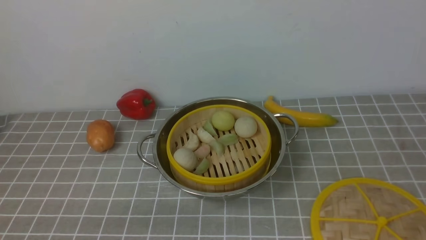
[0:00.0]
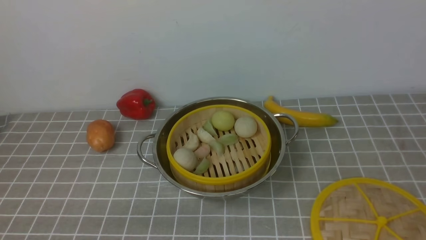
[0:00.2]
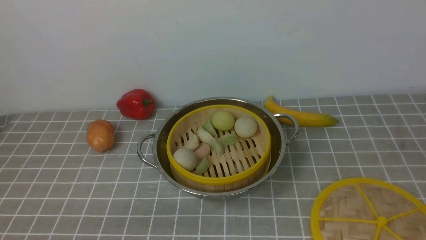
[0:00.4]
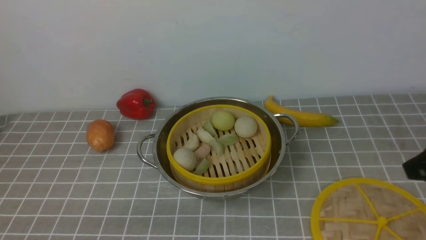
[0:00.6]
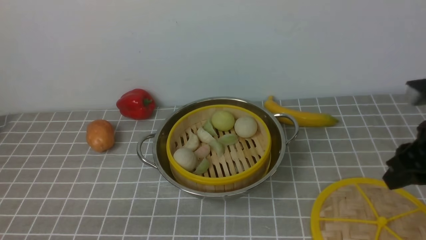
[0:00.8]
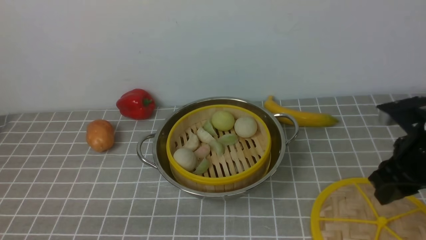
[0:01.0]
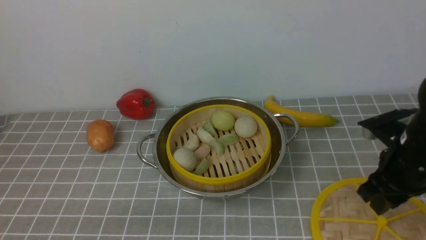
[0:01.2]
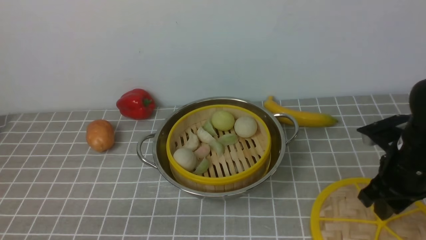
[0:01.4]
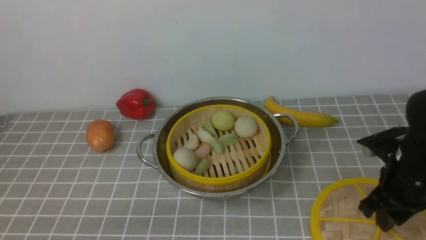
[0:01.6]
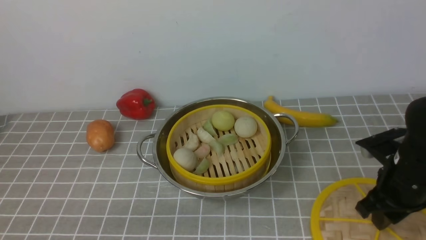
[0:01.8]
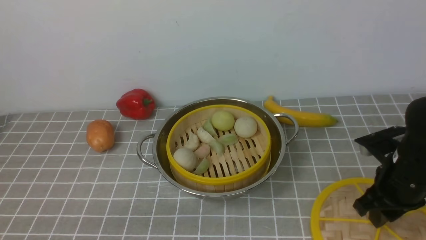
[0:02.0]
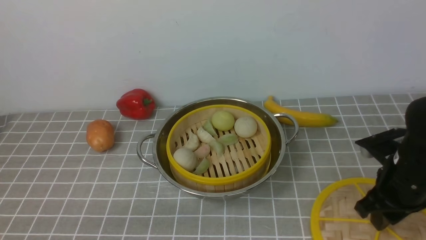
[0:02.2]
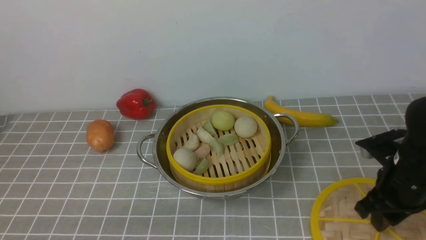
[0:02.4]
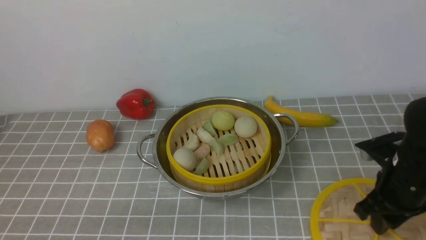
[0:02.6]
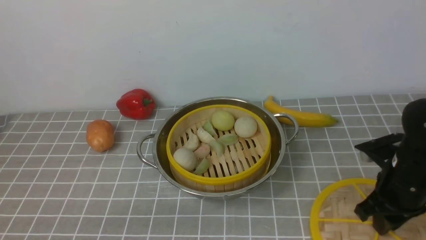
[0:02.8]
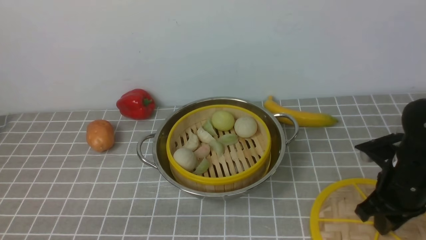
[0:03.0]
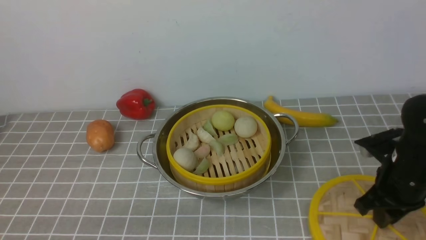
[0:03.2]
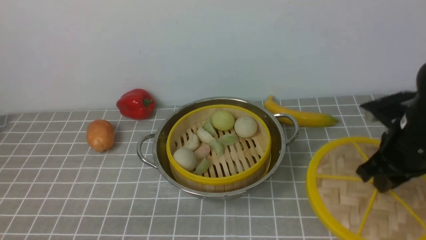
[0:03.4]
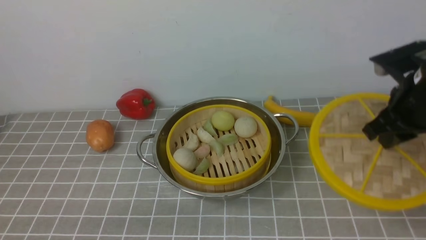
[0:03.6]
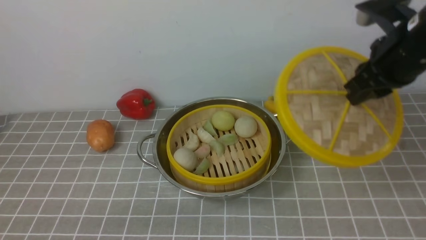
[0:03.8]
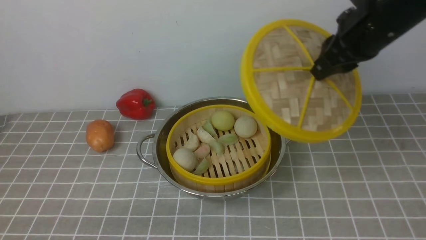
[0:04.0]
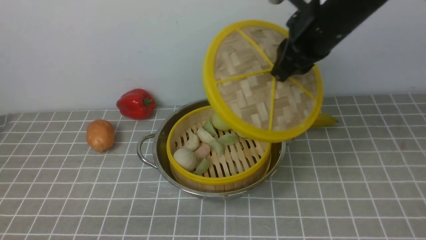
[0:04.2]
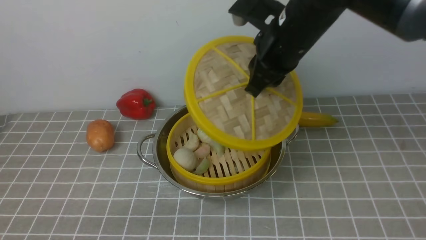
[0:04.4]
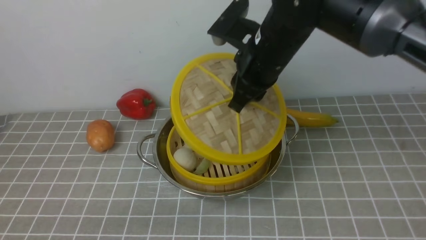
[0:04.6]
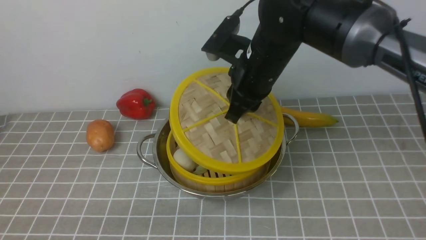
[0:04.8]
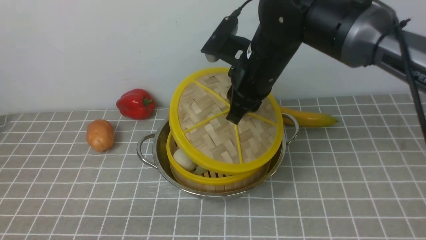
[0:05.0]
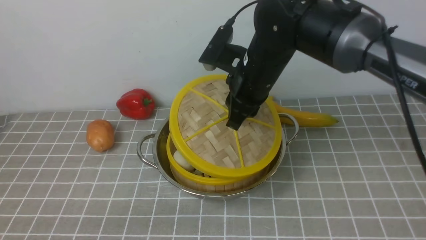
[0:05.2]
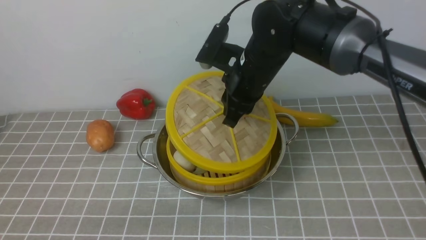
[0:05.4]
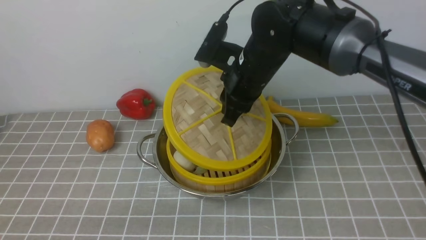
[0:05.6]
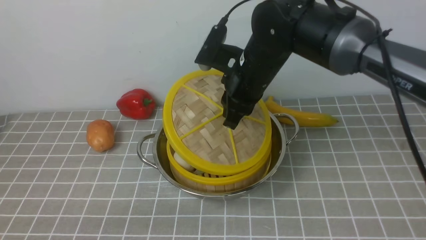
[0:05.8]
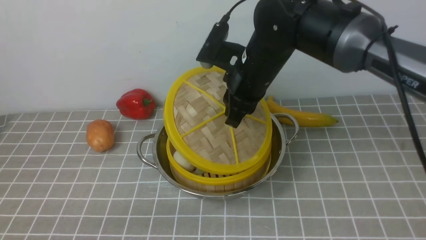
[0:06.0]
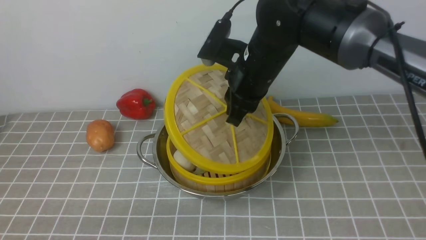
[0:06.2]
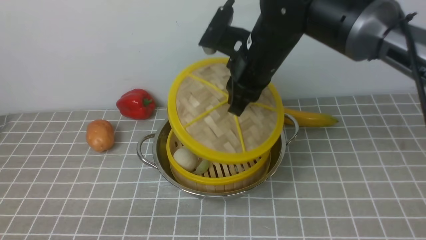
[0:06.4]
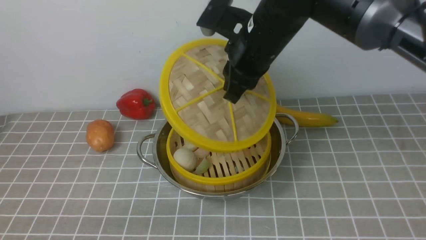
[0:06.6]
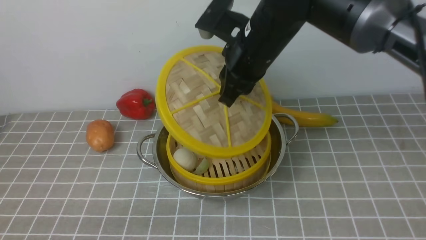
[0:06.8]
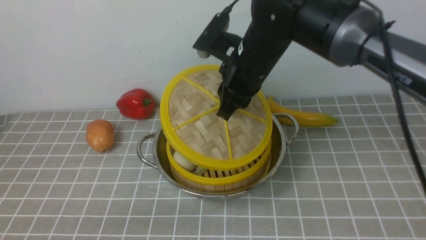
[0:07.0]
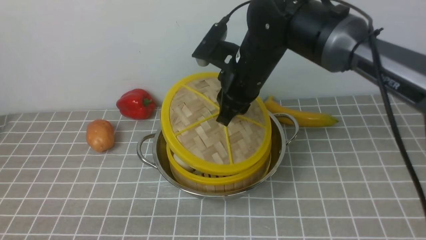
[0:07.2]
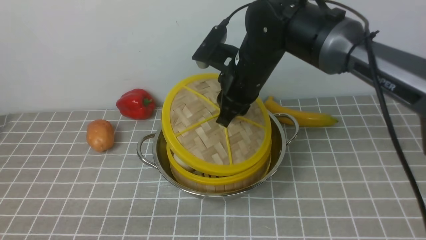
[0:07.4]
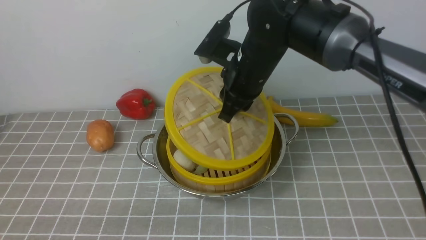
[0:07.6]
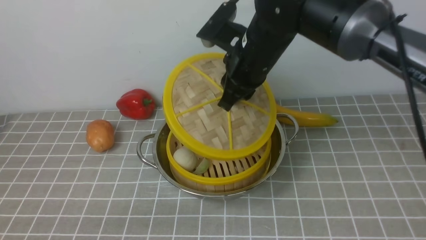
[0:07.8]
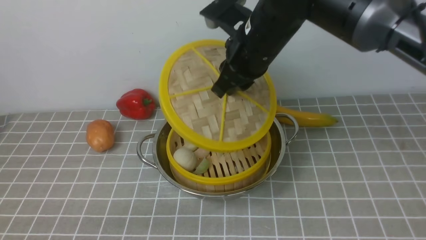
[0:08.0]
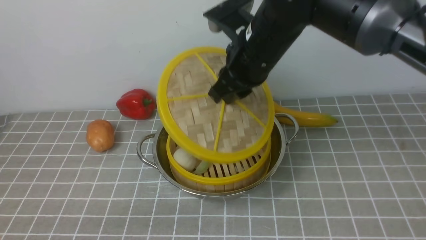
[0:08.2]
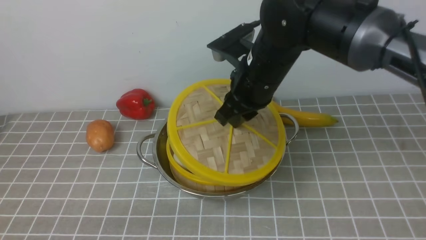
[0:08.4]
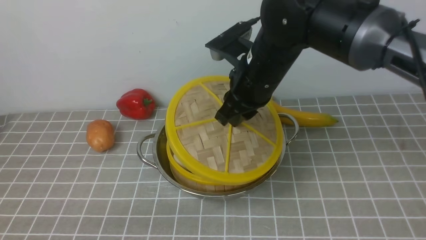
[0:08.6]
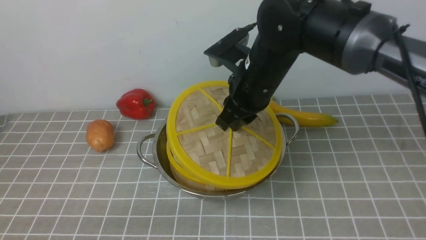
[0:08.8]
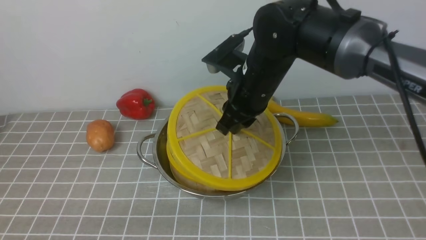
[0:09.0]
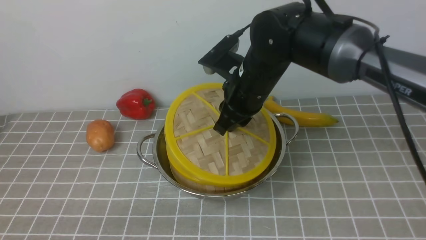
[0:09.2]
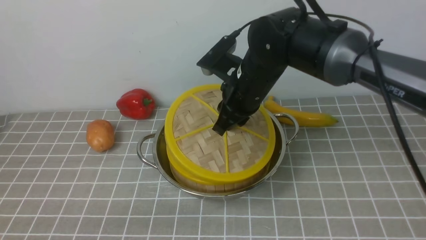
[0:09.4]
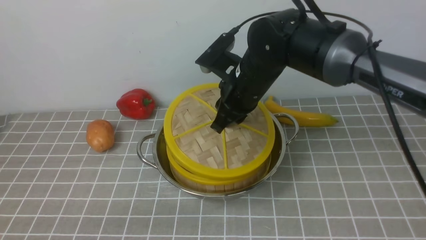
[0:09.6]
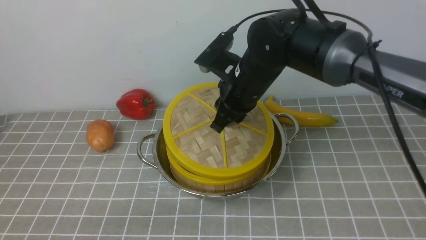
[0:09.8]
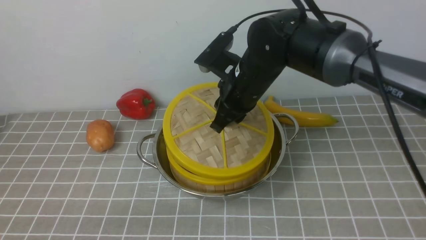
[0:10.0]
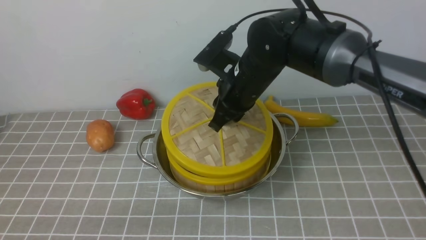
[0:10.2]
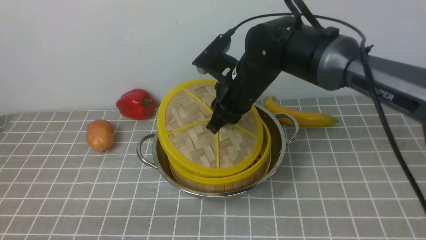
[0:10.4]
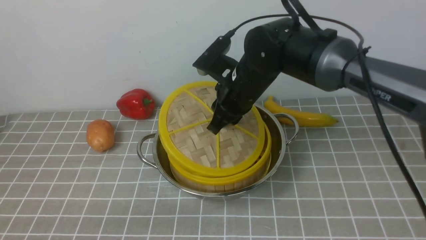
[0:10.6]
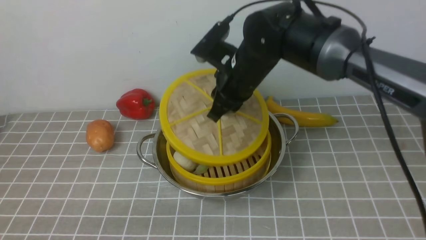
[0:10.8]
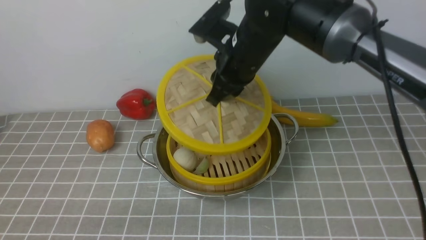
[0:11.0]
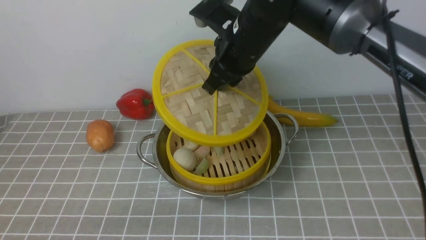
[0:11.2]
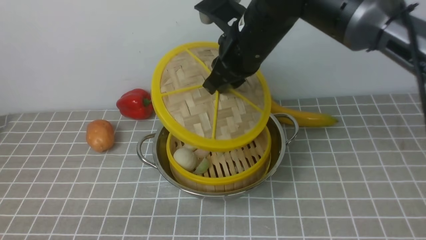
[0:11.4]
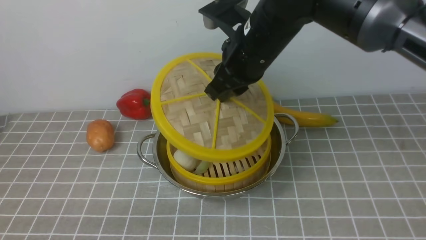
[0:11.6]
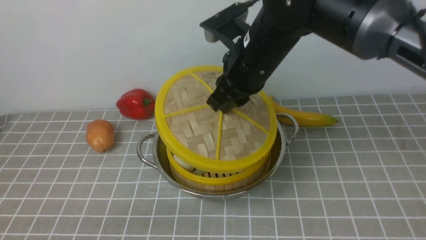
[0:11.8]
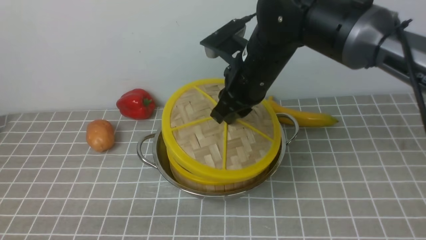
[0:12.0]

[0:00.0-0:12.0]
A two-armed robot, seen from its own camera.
Task of the whole recording: place the steamer in the pot on the grey tablecloth, and put the lid on the steamer.
Step, 0:00.0 to 0:03.2: use the right arm to lift the lid of the steamer.
0:00.0 to 0:01.6: The right gripper moves forward and downward, some 20 cm.
0:01.6 to 0:03.0: The right gripper closes.
0:03.0 to 0:04.4: The right gripper goes some 25 cm upward, to the left and forward.
0:04.4 to 0:06.0: The right gripper ends up some 5 cm from where it was.
0:06.0 to 0:07.6: There are only small adjustments of the grippers.
0:07.6 to 0:10.4: The grippers stay close to where they were, moving slightly.

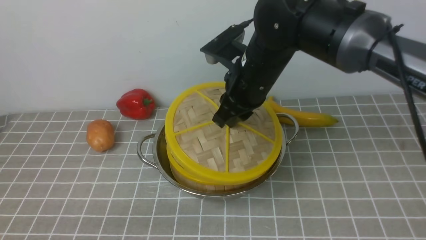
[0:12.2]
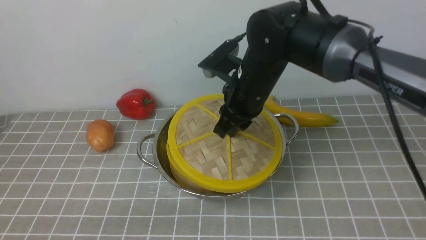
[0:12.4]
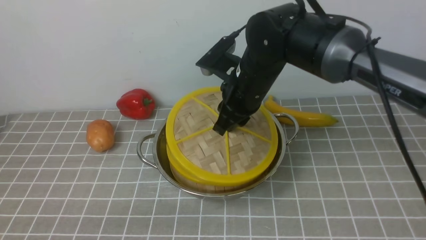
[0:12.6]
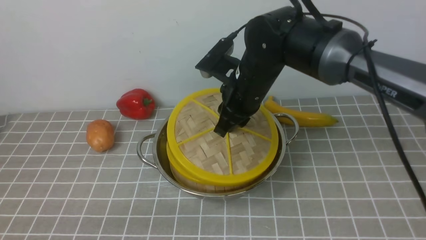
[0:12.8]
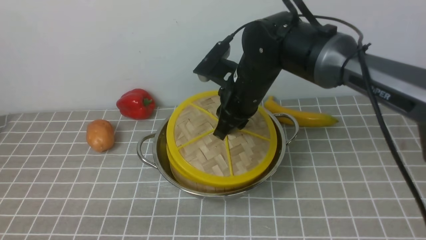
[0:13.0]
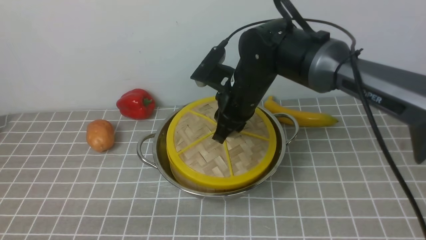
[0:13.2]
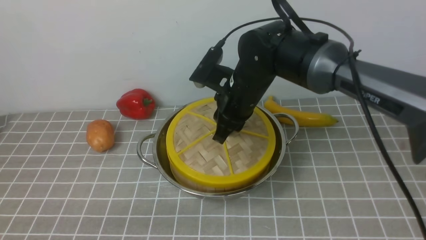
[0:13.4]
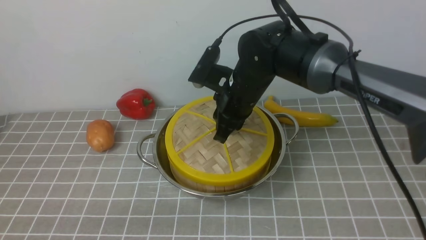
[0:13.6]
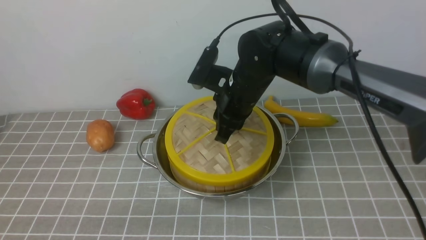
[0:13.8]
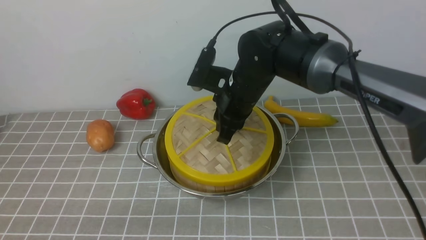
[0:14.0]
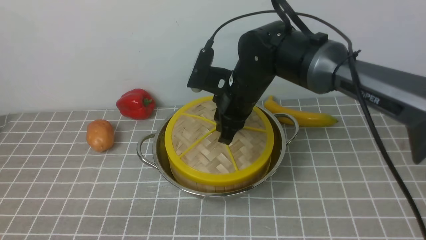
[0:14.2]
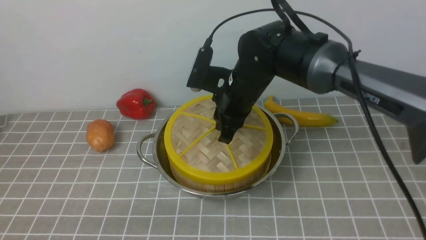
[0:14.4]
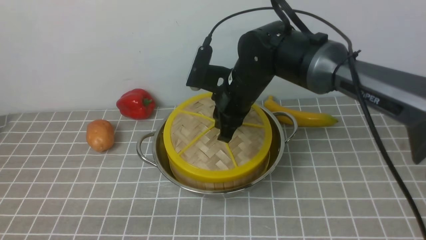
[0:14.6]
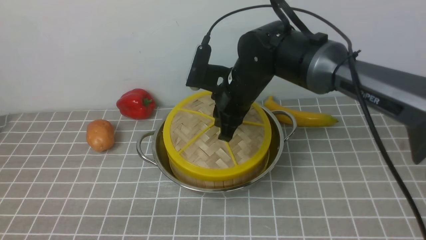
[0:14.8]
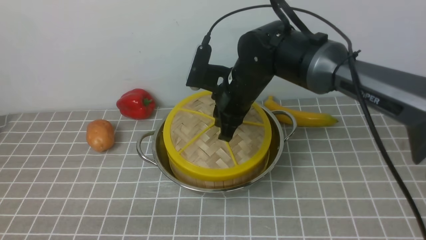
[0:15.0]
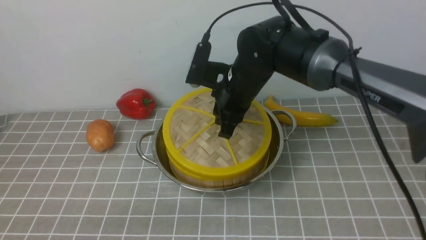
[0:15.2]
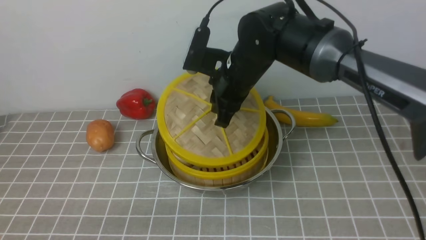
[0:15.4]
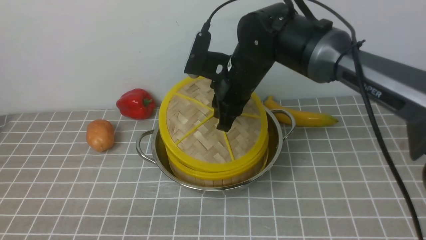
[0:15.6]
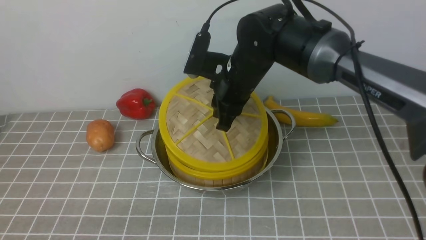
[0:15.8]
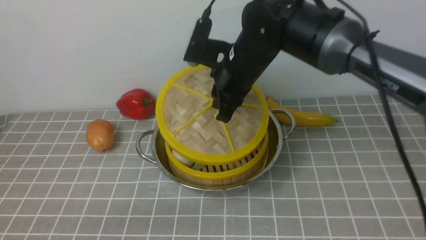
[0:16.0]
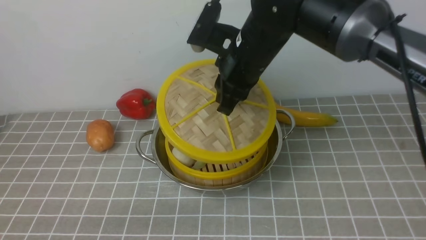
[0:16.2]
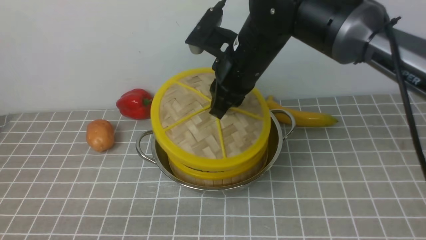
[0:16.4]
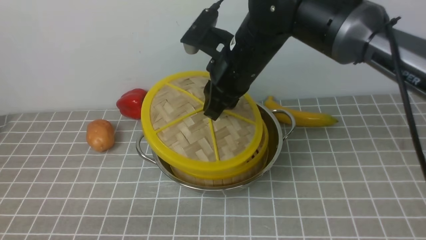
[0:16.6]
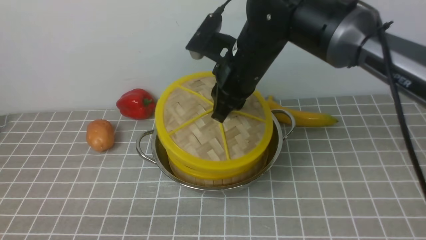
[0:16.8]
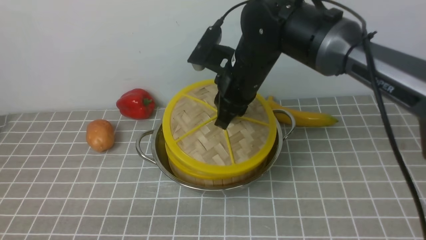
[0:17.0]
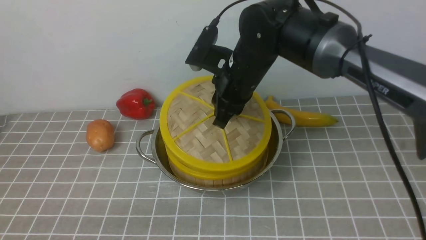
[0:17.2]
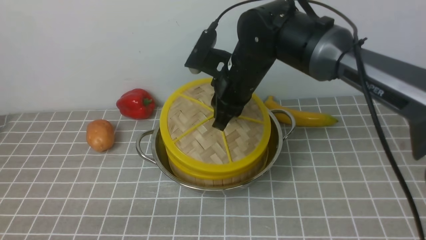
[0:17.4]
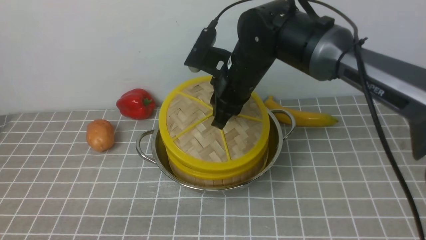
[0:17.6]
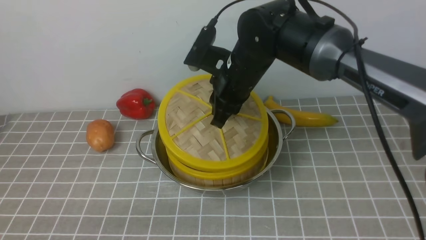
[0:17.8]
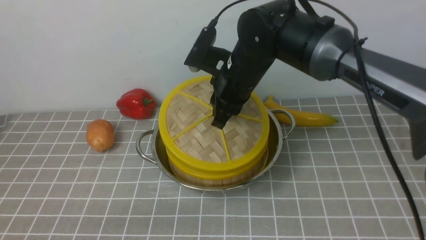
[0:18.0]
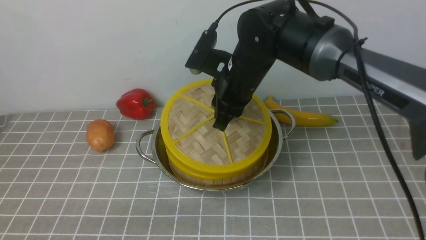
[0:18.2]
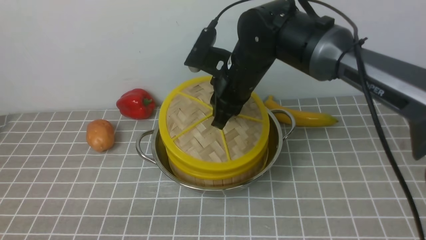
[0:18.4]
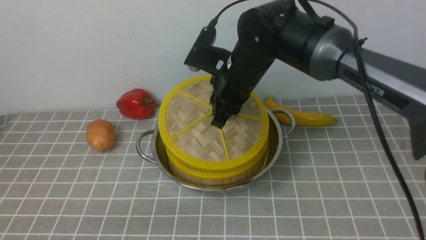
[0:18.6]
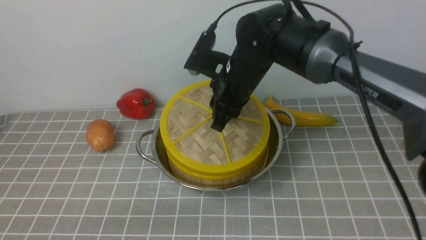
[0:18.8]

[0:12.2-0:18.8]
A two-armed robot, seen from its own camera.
Task of the whole recording: place the steamer in the pot on the grey tablecloth, and put the lid on the steamer.
0:12.2 to 0:13.8: The grippers make only small movements.
0:13.8 to 0:15.4: There are only small adjustments of the grippers.
0:15.4 to 0:17.2: The grippers move only a little.
0:17.2 to 0:18.8: Both grippers stay put.
